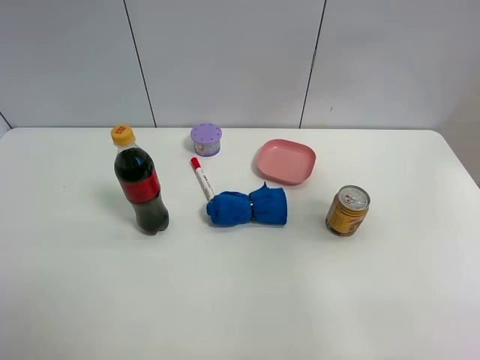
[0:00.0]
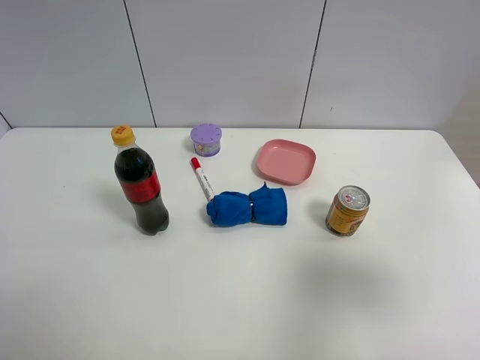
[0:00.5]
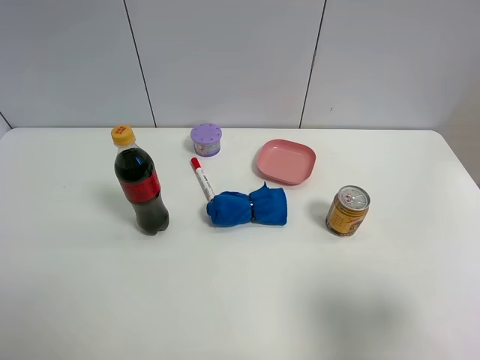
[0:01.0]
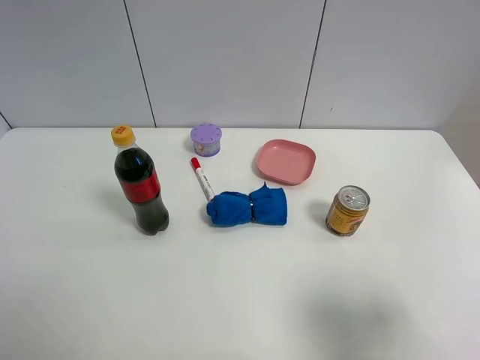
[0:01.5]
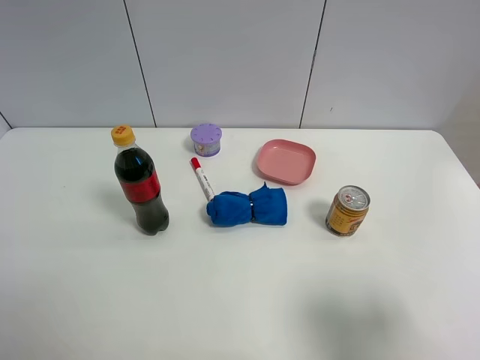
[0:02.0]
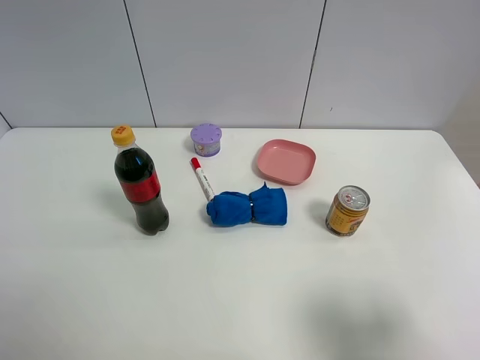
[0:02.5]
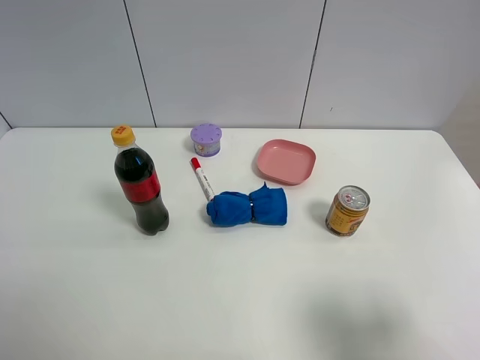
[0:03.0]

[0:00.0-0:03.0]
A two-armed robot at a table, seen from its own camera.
Task of the whole recording: the gripper move the object.
0:00.0 to 0:01.5: The right gripper travels backward and downward by some 20 cm.

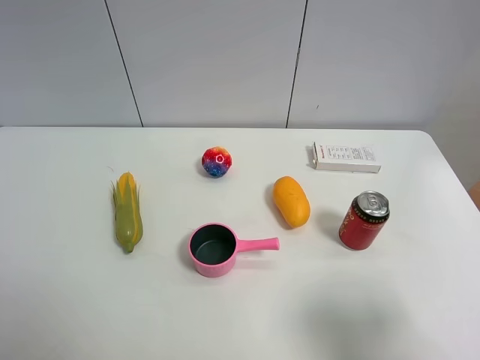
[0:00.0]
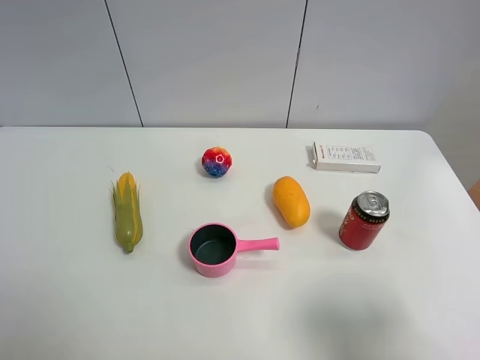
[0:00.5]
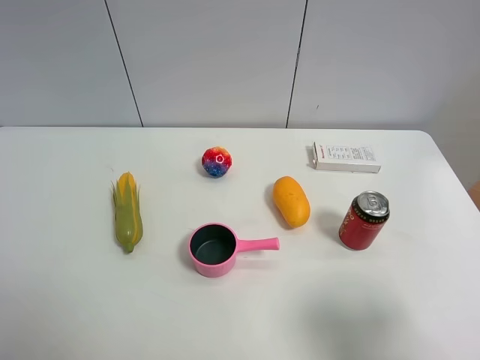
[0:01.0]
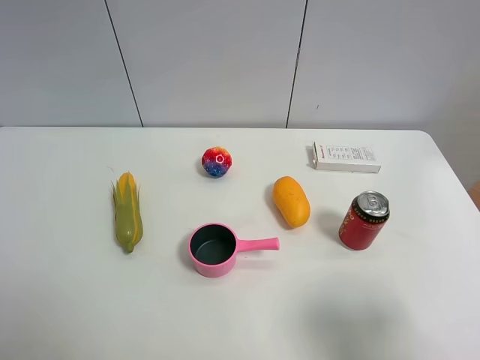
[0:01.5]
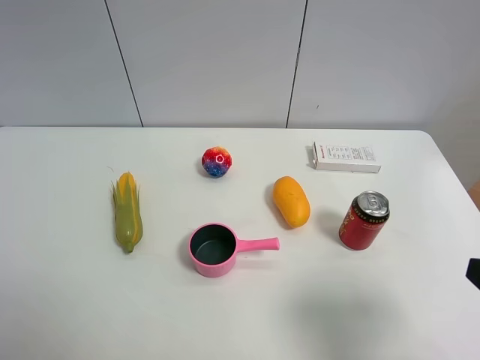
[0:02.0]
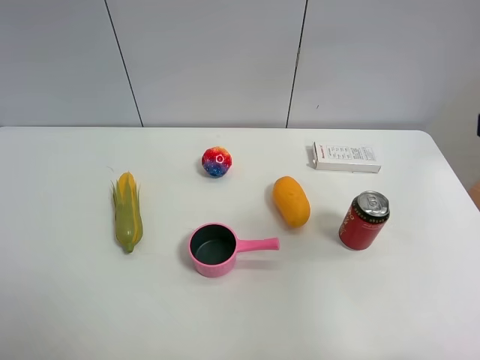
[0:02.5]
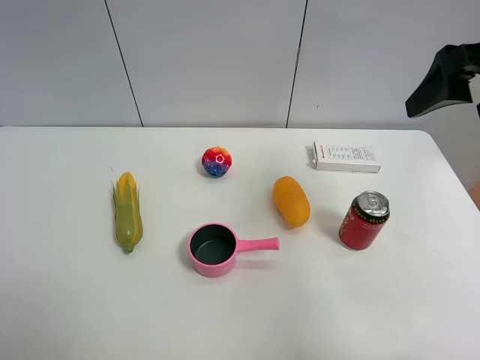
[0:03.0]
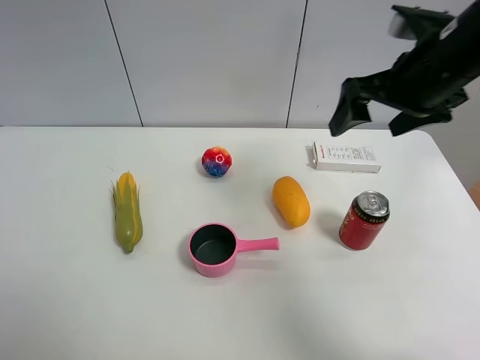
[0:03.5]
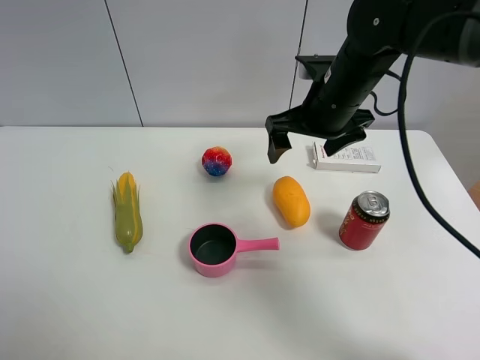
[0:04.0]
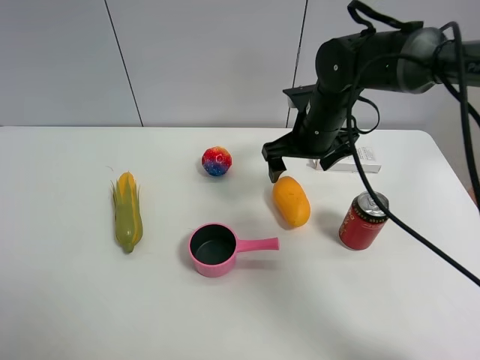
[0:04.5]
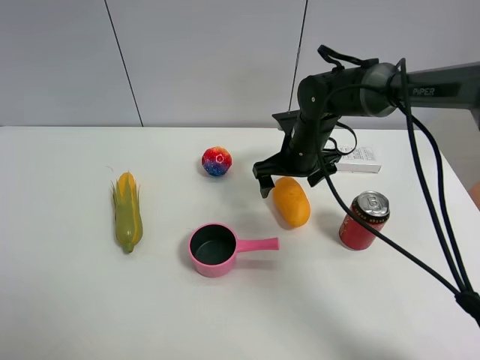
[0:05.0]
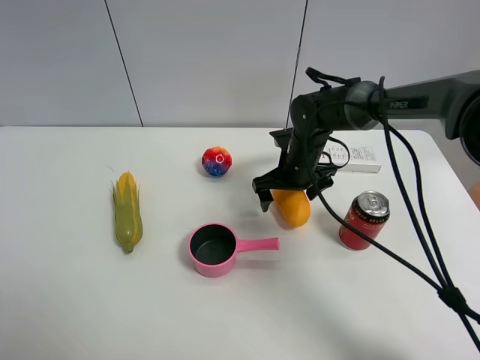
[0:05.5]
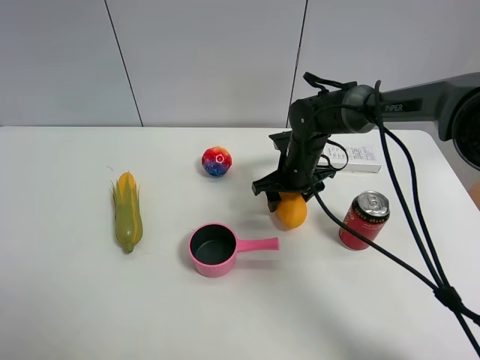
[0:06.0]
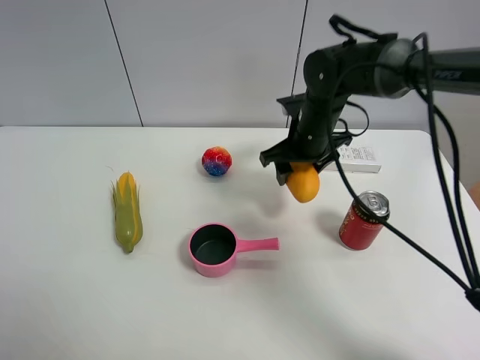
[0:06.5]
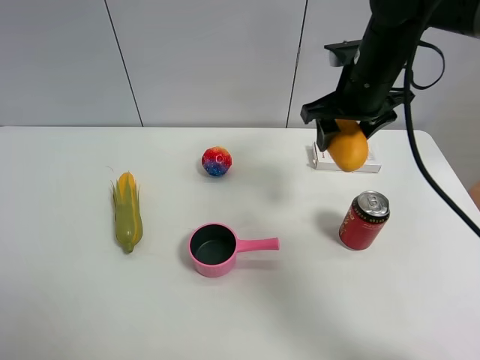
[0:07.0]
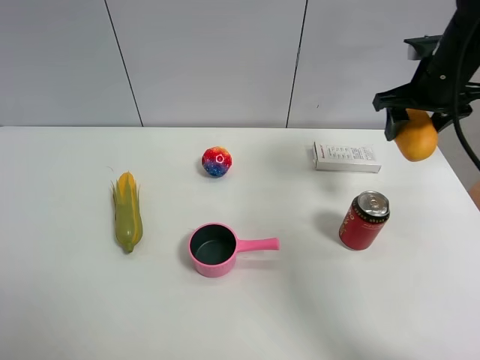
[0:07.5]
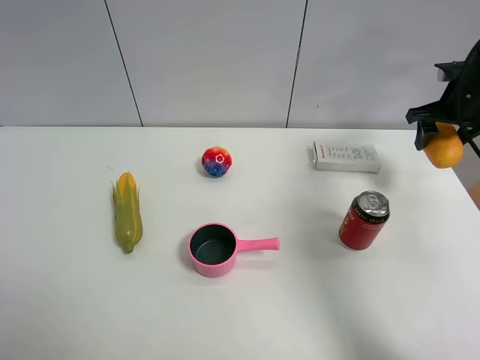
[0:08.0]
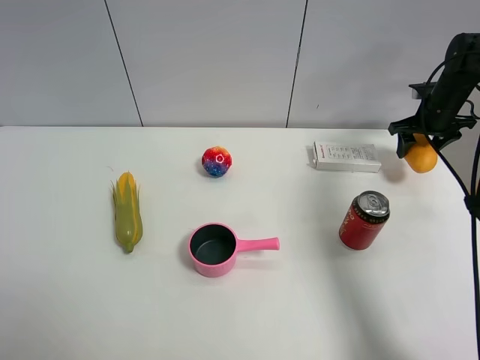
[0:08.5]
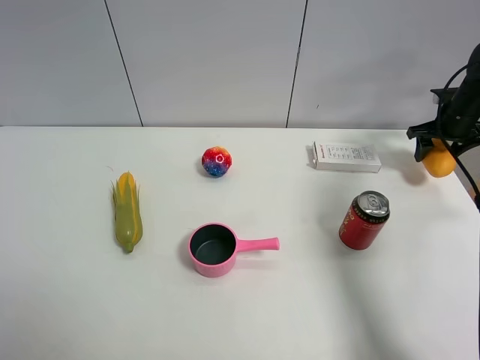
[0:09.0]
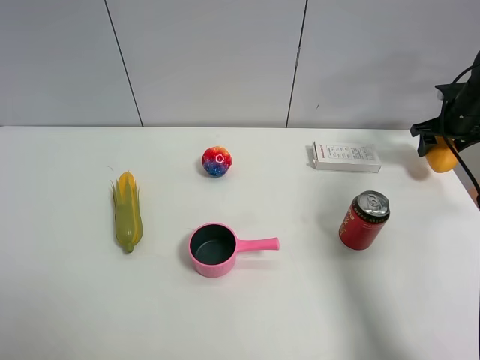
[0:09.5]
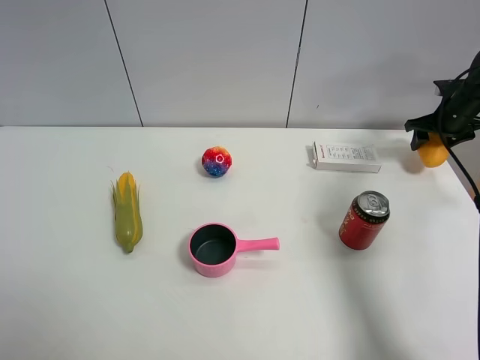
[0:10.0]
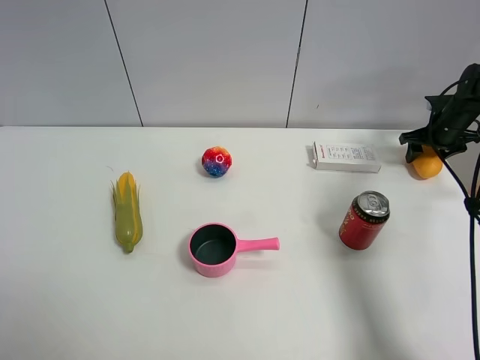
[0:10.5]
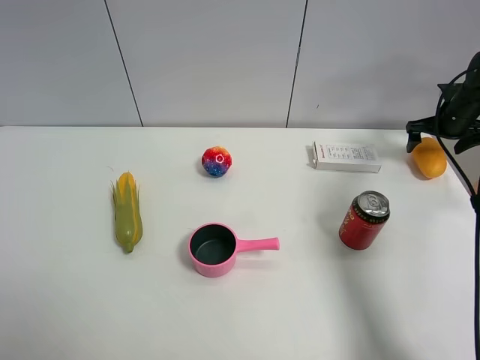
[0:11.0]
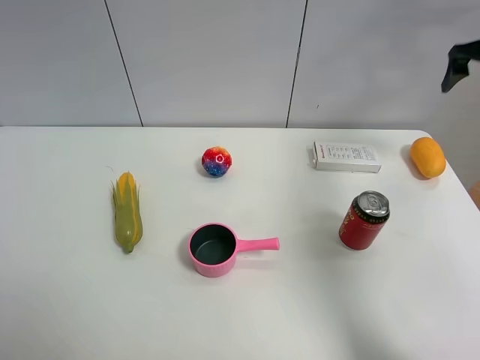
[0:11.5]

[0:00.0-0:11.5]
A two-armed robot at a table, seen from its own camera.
Task of the whole recording: the gripper move the object.
Step, 0:00.0 to 0:06.0: Grasp the mango with the right gripper.
Step, 0:06.5 to 0:11.0: Place the mango on the table with the right gripper.
0:02.0 to 0:04.0: The right gripper heads forward and to the left, covering about 35 cm.
0:04.0 to 0:06.0: The right gripper shifts approximately 15 cm downward, and closes up.
0:06.0 to 0:07.5: The right gripper is displaced upward and to the right by roughly 25 cm.
0:07.5 to 0:09.5: The right gripper goes about 25 cm to the right, downward and forward.
0:09.5 to 0:11.5: The right gripper goes roughly 20 cm upward, and opens its fingers.

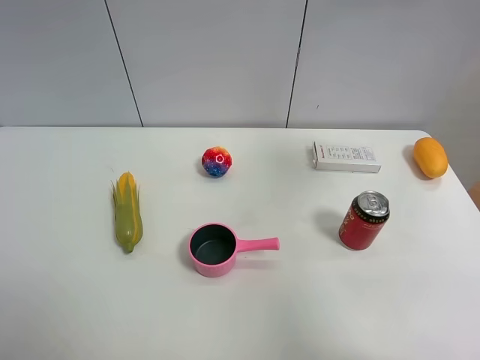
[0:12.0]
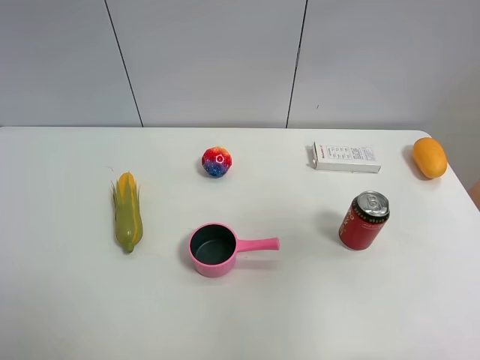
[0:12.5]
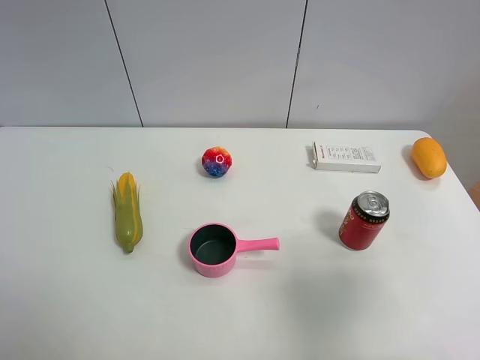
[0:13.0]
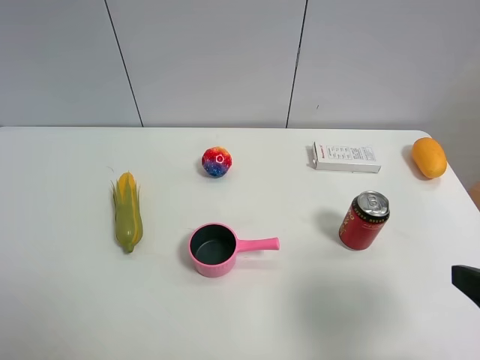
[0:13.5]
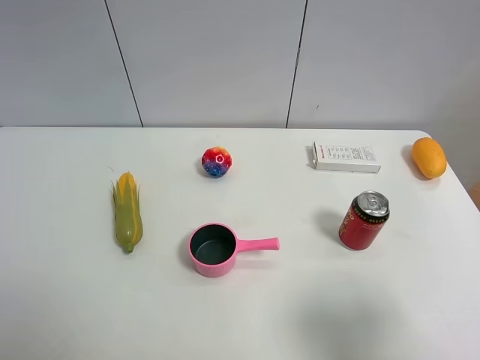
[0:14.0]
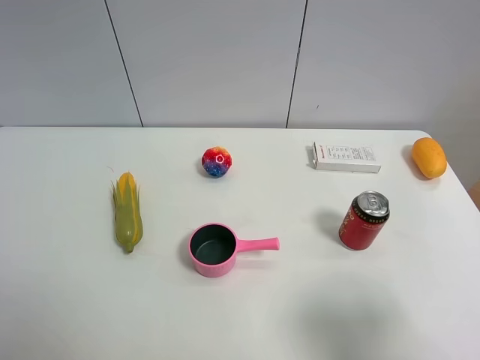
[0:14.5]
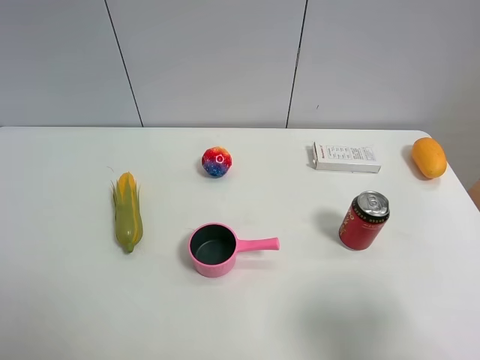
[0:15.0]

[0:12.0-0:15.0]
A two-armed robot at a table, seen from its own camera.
Task of the whole recording: the gripper move the object.
0:12.0 to 0:13.5: The right gripper moves downward and backward, roughly 30 cm.
0:13.5 to 0:15.0: The grippers move only a little.

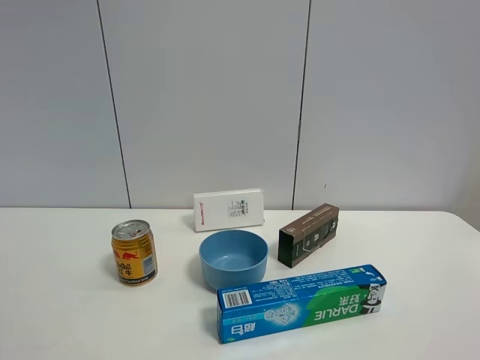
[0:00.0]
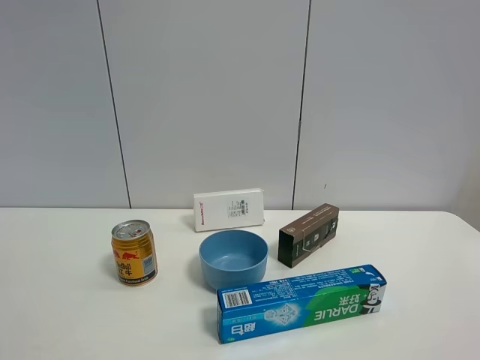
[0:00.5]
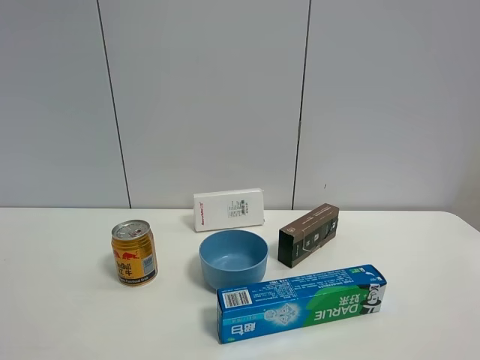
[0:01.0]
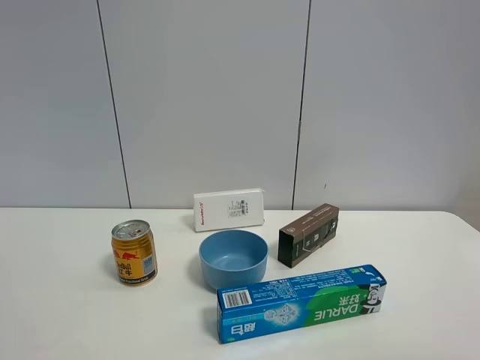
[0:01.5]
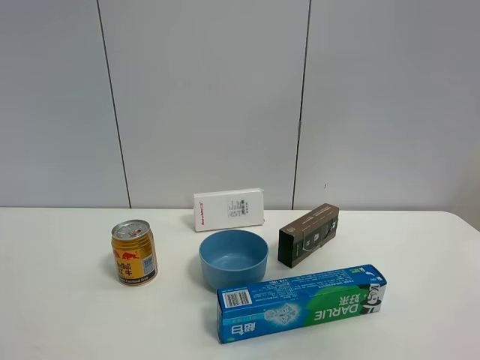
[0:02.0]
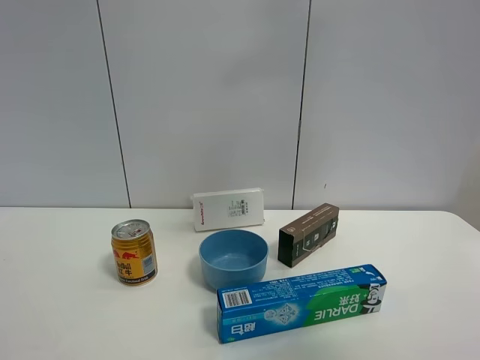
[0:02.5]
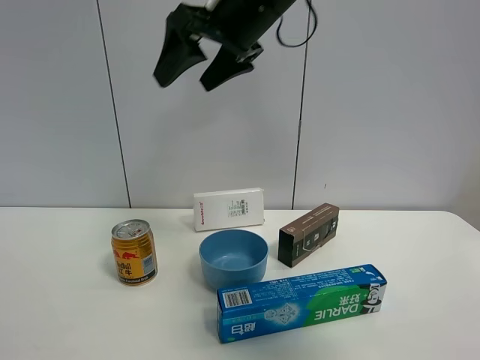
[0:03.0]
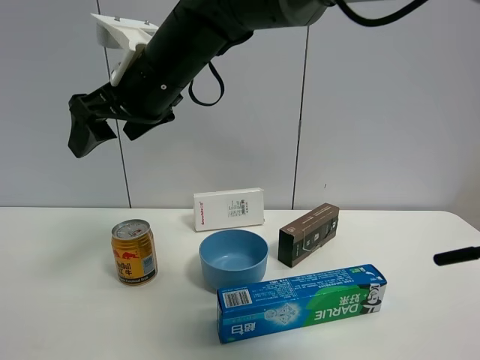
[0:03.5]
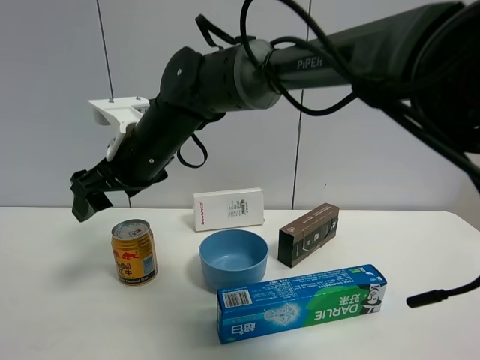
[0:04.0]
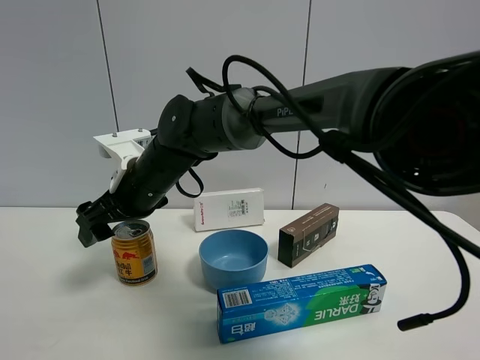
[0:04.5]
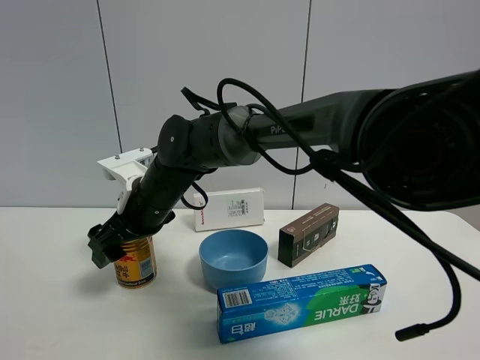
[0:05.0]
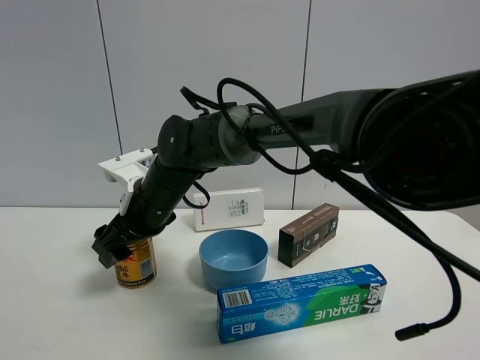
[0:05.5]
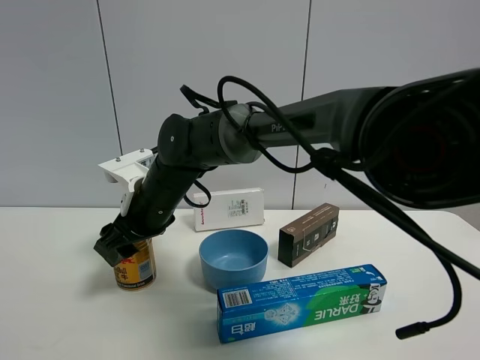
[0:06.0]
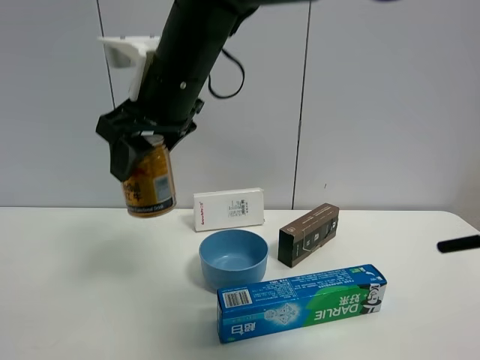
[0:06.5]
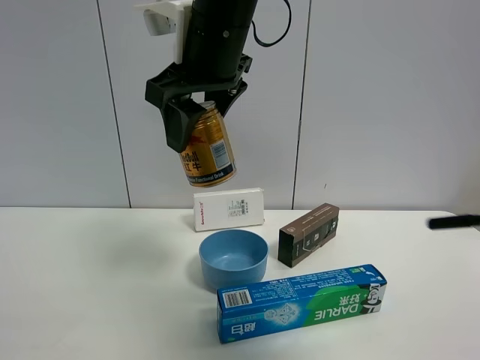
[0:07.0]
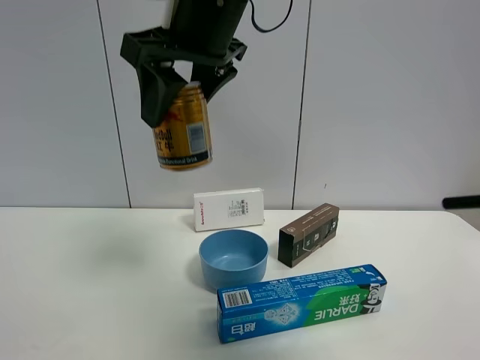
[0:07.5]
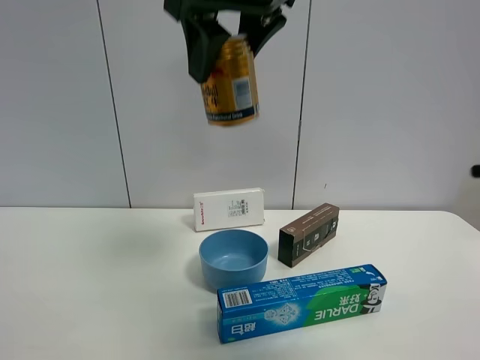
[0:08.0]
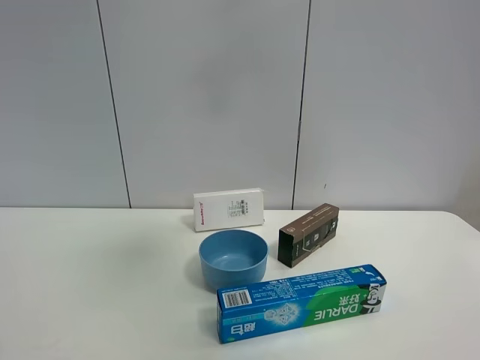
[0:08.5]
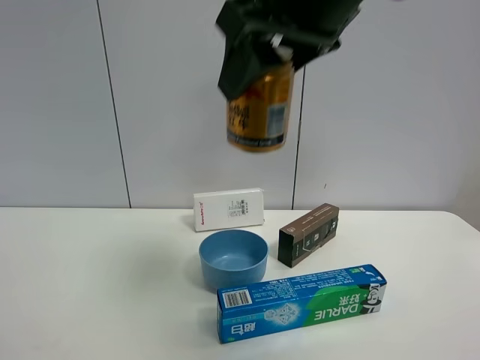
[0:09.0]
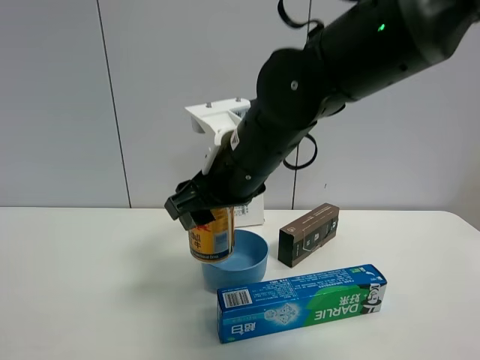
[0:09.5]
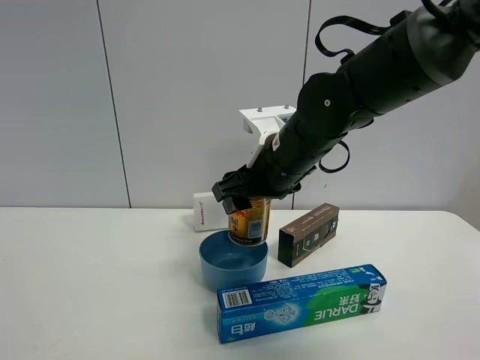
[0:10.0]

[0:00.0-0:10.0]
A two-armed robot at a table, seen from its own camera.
Task of the whole recording: the gripper move the object.
Step, 0:00.0 to 0:05.5: Grasp the red bull with the right gripper.
0:00.0 to 0:02.0: The right gripper shifts roughly 25 cm upward and forward.
0:02.0 to 0:04.0: The right gripper is displaced to the left, downward and forward by some 50 cm.
0:04.0 to 0:06.0: The right gripper travels downward by roughly 5 cm, and closes its fingers.
0:06.0 to 0:08.0: The right gripper moves upward and to the right, about 30 cm.
0:08.0 to 0:10.0: The right gripper shifts roughly 20 cm downward.
